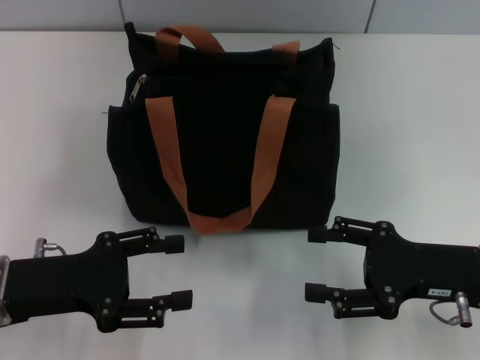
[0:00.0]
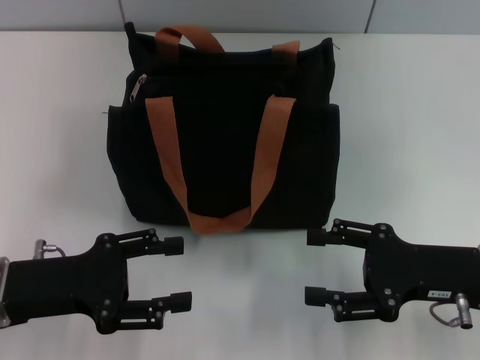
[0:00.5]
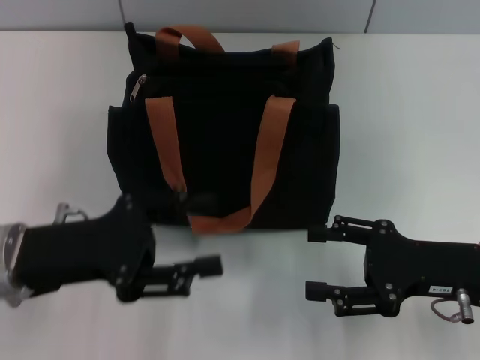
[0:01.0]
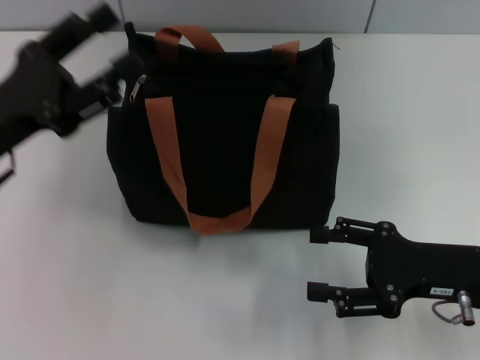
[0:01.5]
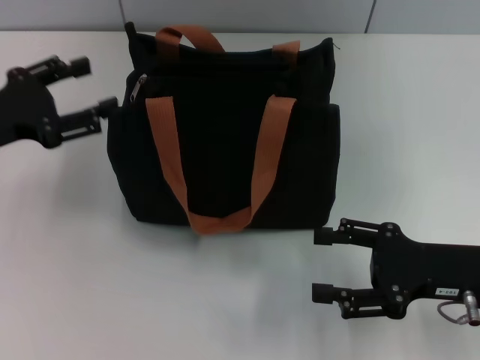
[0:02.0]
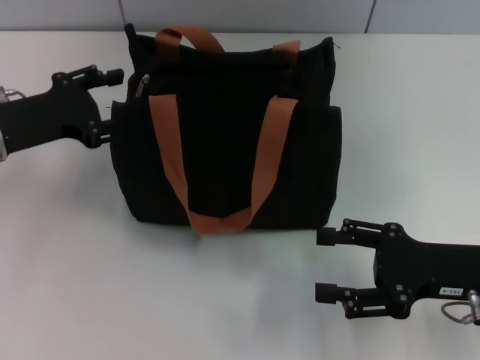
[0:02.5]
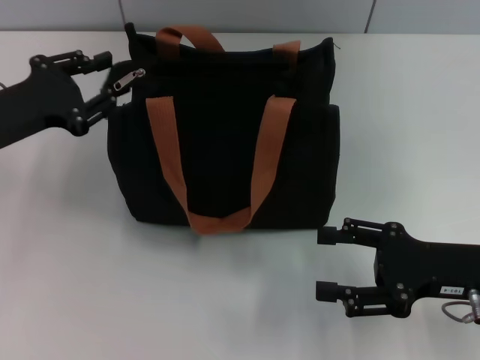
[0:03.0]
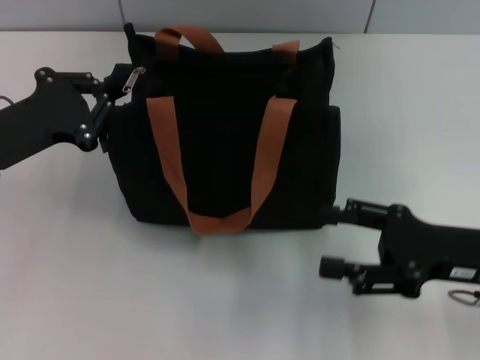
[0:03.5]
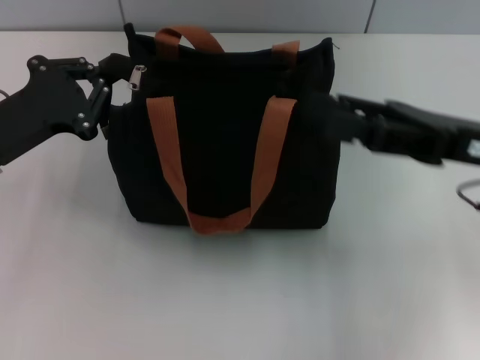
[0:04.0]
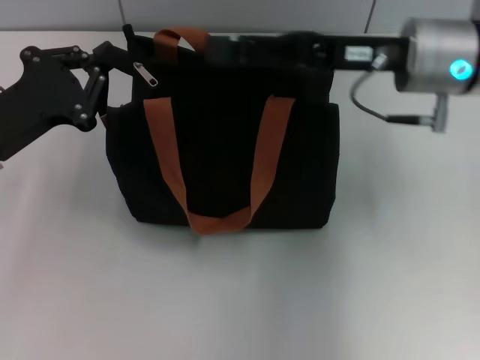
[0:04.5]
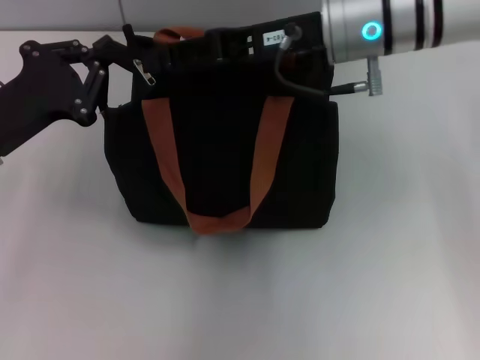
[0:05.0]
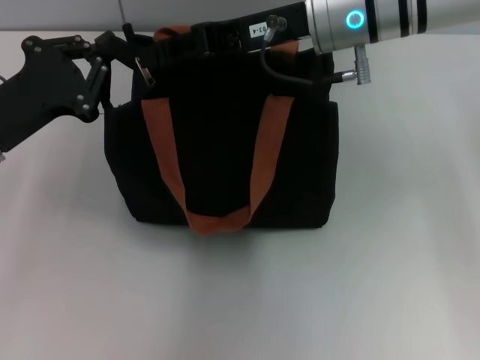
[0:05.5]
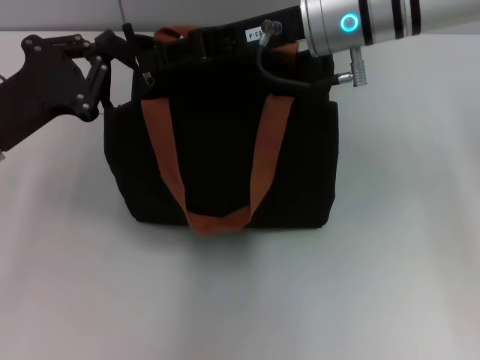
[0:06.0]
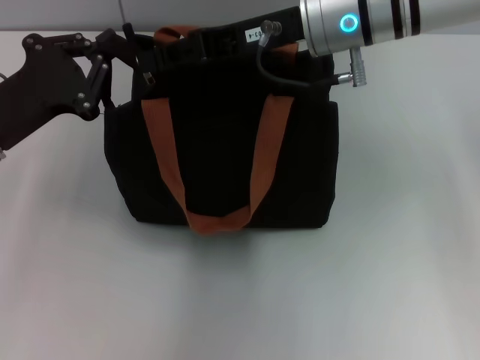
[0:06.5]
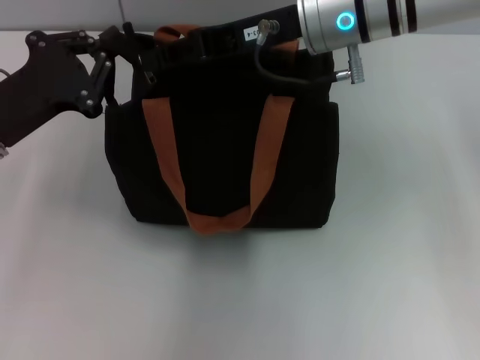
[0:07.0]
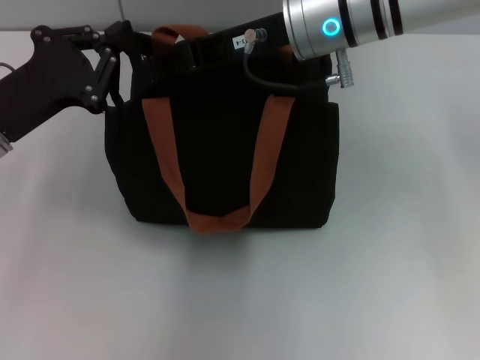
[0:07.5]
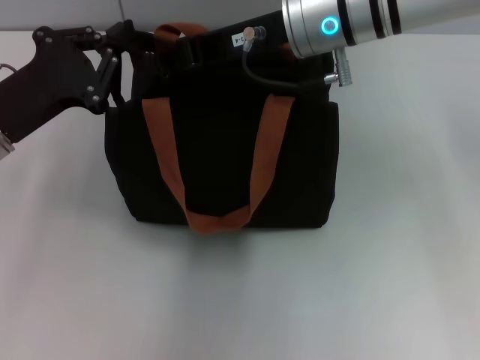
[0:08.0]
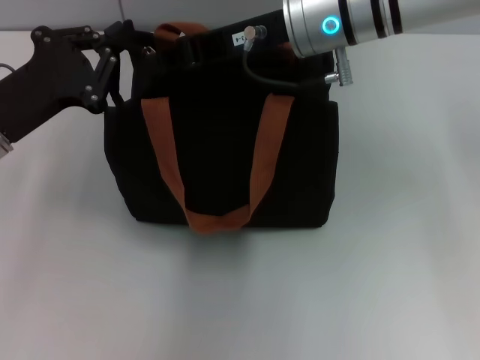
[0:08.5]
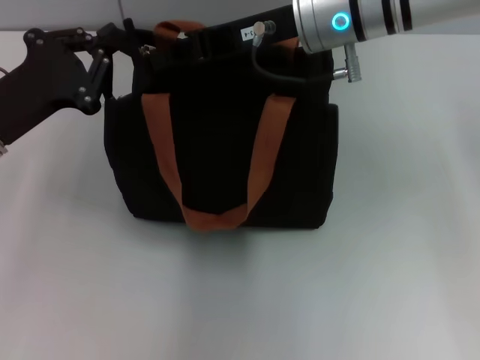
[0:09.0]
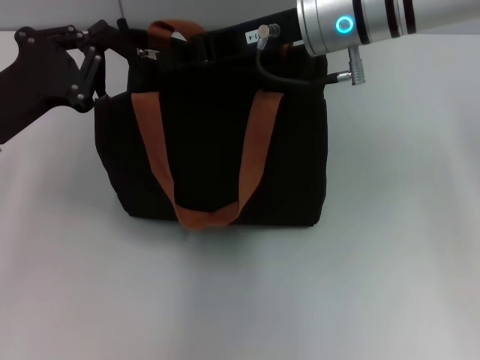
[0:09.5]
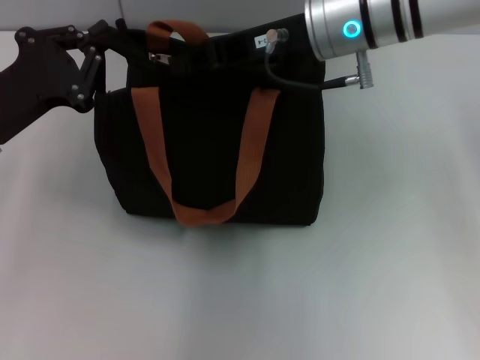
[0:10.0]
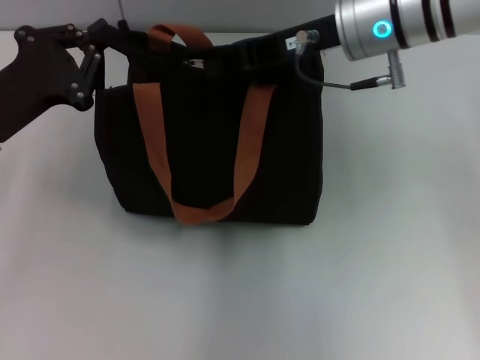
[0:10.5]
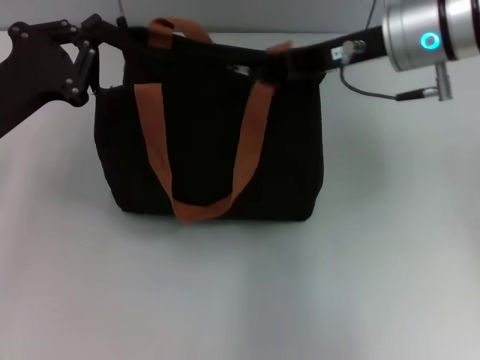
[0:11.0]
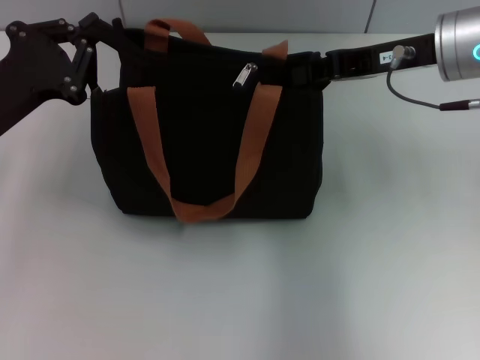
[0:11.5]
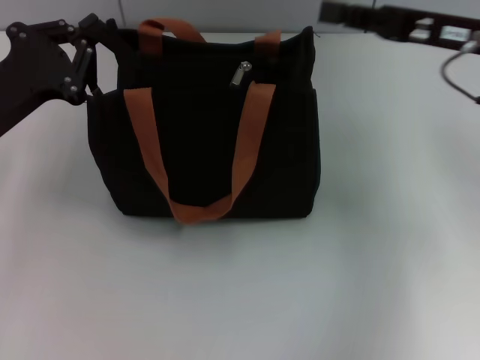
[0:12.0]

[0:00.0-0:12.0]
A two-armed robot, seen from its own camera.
Step, 0.0 to 11.5 s: Pull up the zipper with your right hand.
0.0 to 2.0 s: The left gripper heads forward, upward and to the left, covering about 10 cm.
2.0 to 4.0 s: The right gripper goes some 10 cm upward and forward; the left gripper closes its fingers.
4.0 to 6.0 s: The right gripper goes some 20 cm to the left and forward.
6.0 to 8.0 s: Both grippers stay put.
8.0 to 10.0 s: The grippers stay close to where they were, moving slightly.
10.0 to 12.0 s: The right gripper moves to the right, some 15 cm.

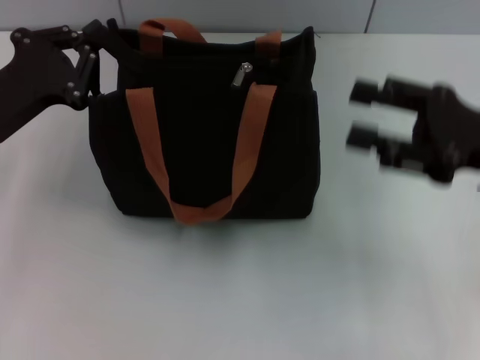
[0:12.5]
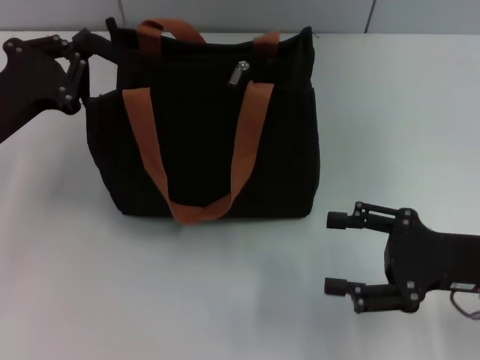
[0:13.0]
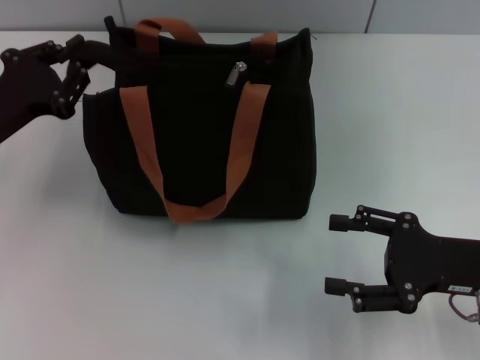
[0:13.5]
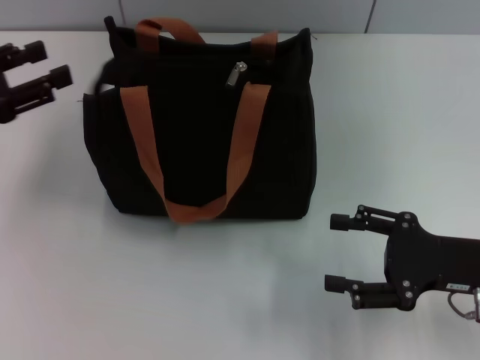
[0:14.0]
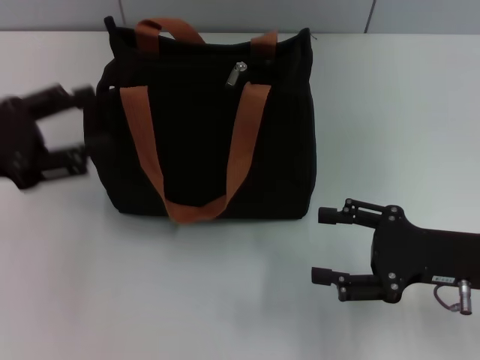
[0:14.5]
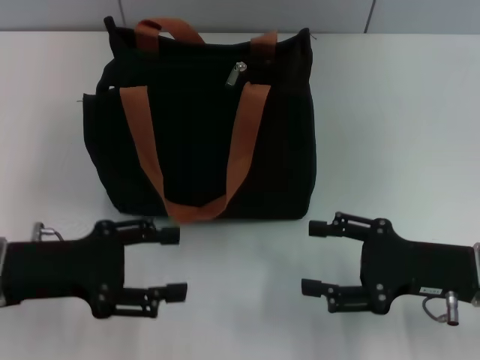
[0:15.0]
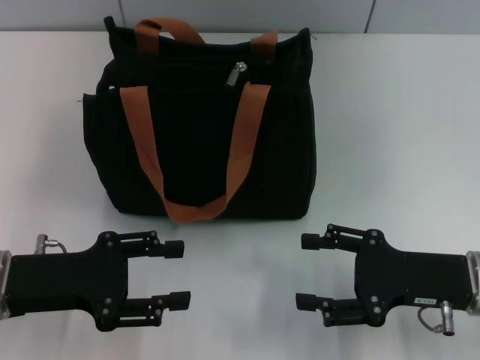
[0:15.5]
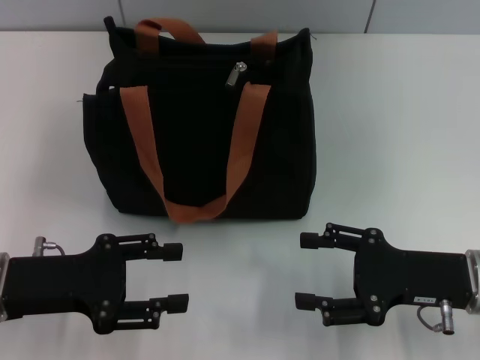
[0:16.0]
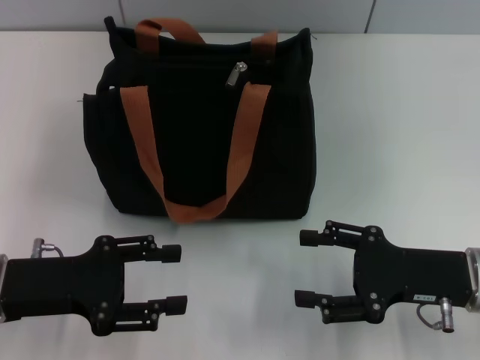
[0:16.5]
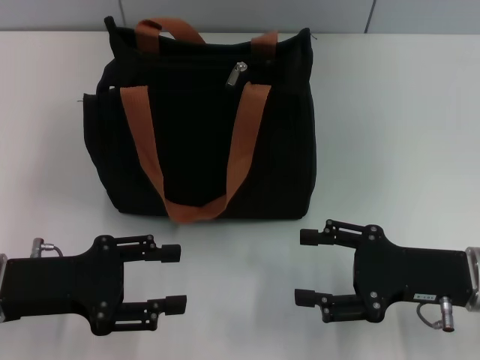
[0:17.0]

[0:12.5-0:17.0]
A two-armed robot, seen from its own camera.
Step, 12.5 to 13.5 s: Grab the zipper with your left hand.
12.5 to 14.5 s: The right gripper is displaced downward by about 10 cm, and opens its fingers; the left gripper moves roughly 5 cm, and opens its fingers.
14.5 to 17.0 s: The left gripper heads downward and to the right, covering about 10 cm.

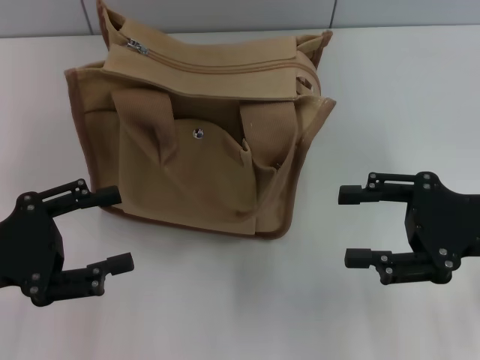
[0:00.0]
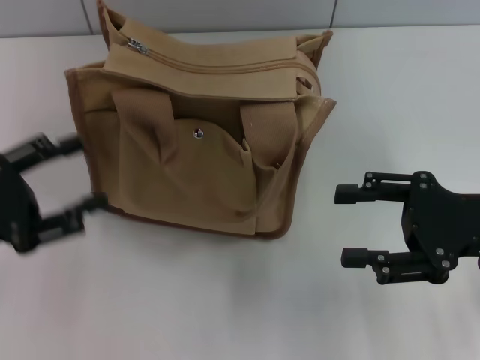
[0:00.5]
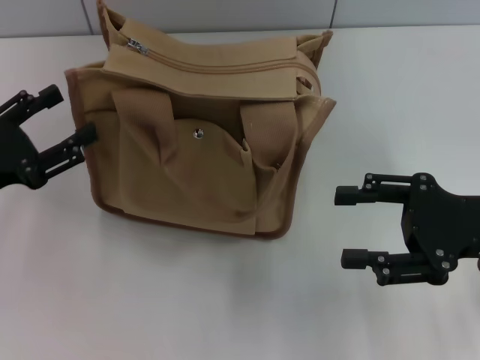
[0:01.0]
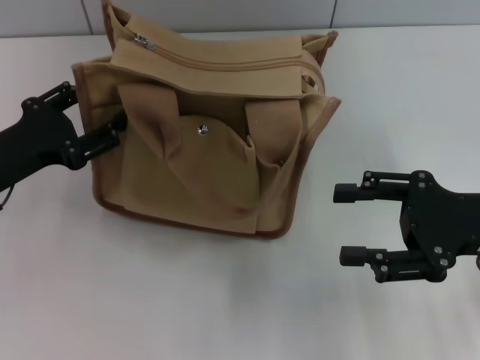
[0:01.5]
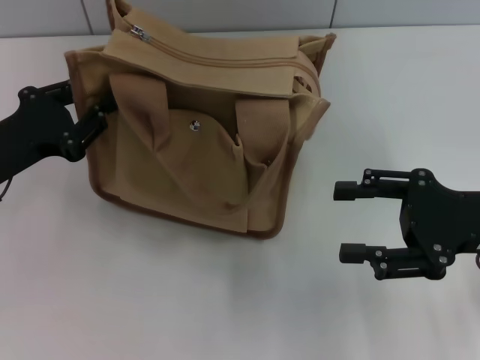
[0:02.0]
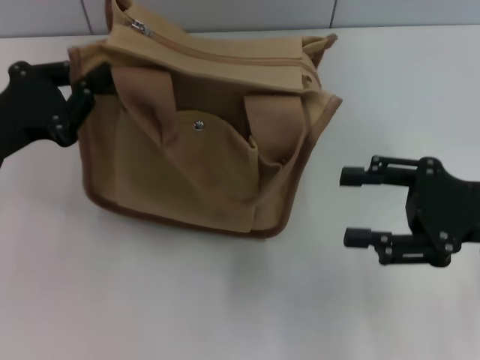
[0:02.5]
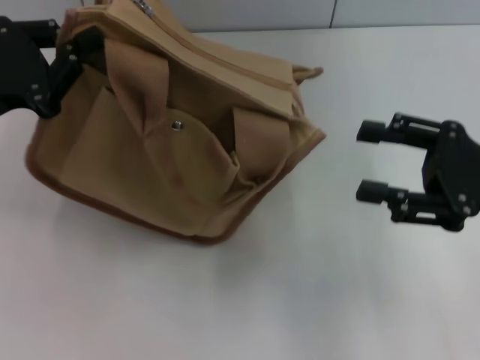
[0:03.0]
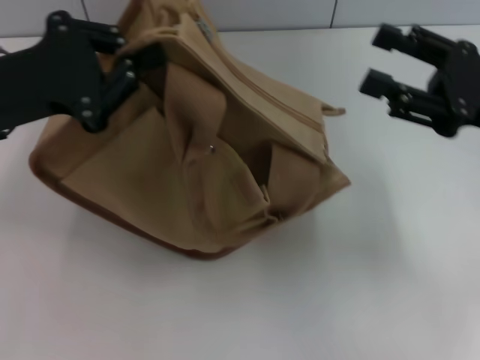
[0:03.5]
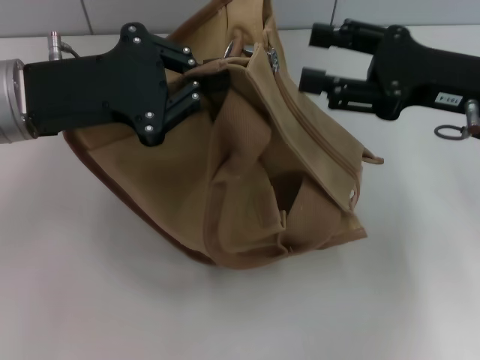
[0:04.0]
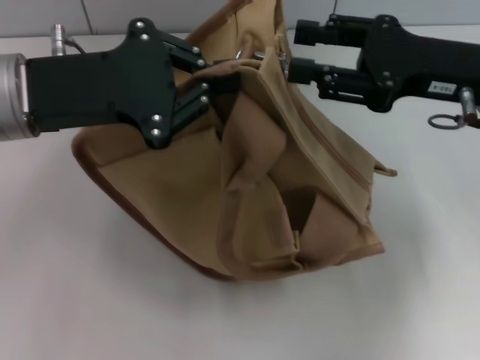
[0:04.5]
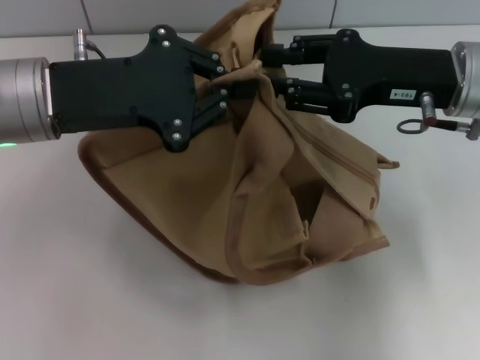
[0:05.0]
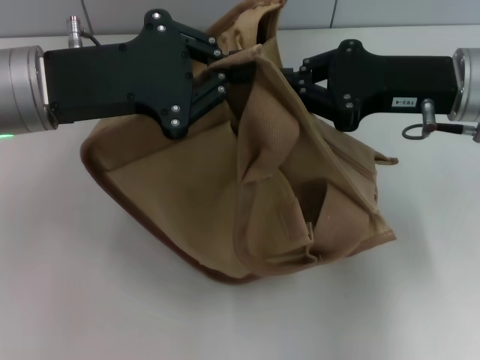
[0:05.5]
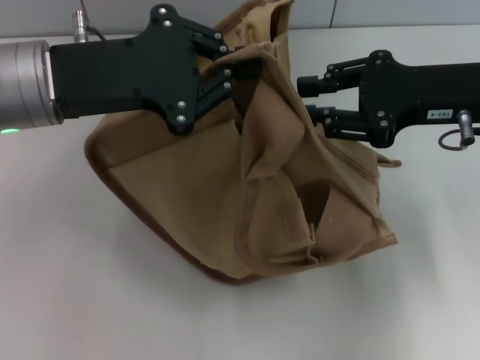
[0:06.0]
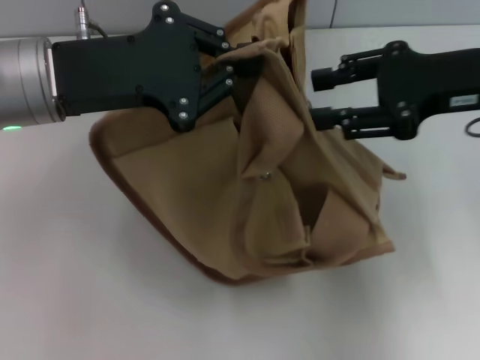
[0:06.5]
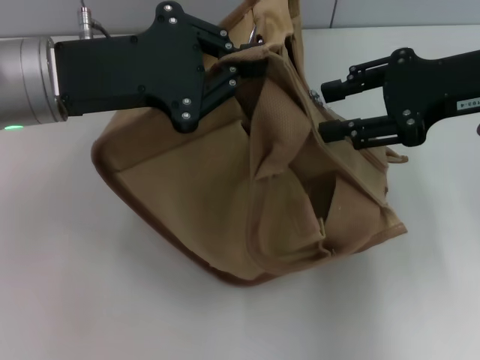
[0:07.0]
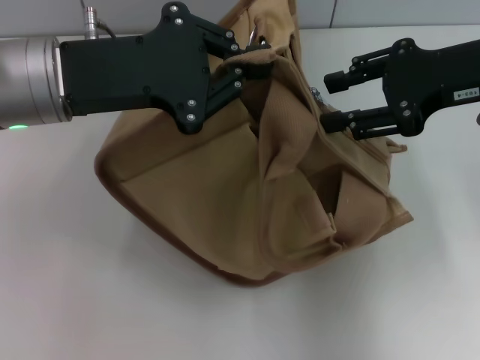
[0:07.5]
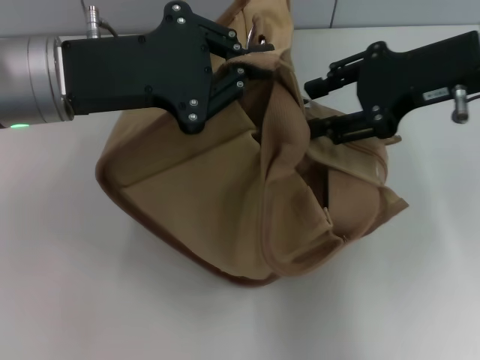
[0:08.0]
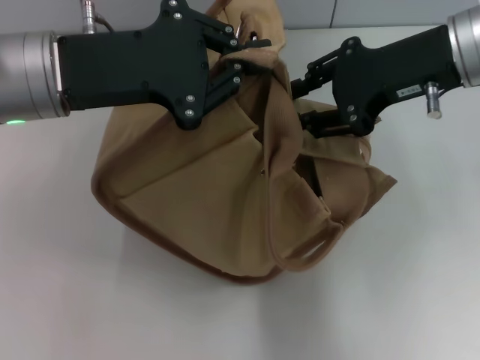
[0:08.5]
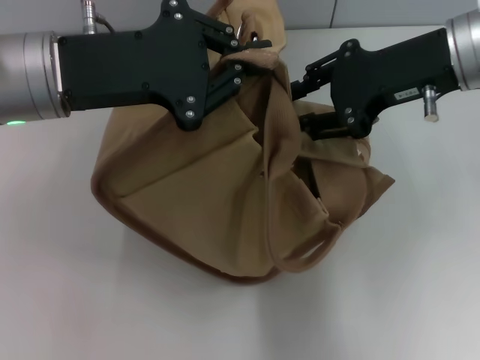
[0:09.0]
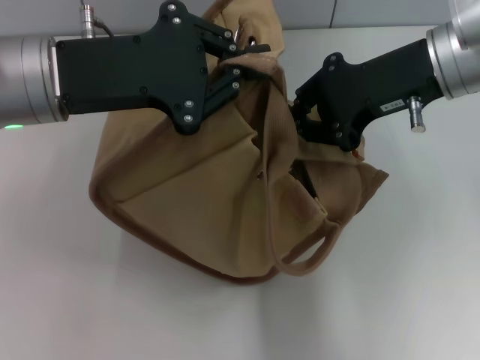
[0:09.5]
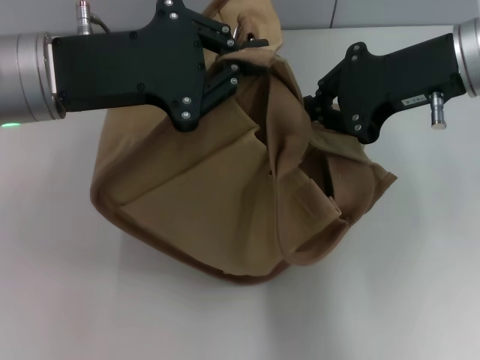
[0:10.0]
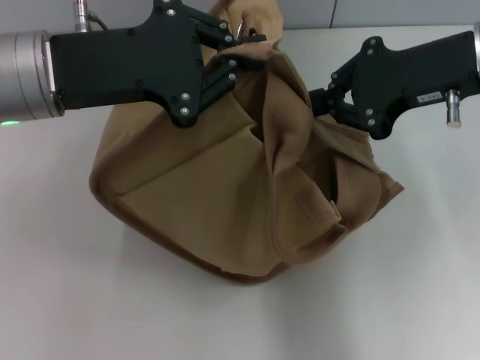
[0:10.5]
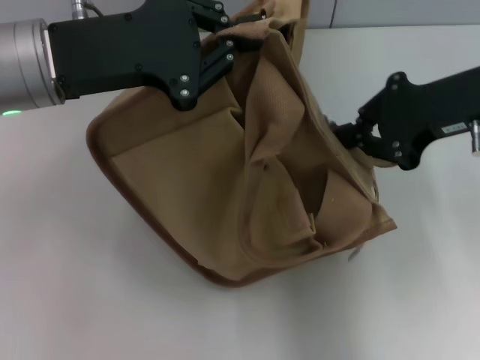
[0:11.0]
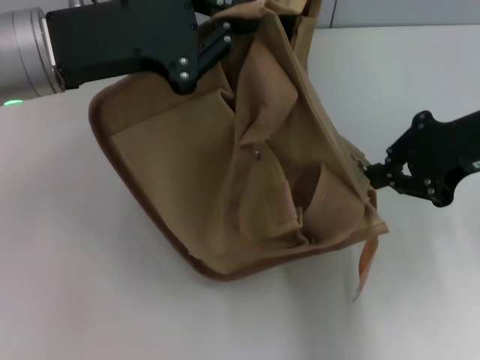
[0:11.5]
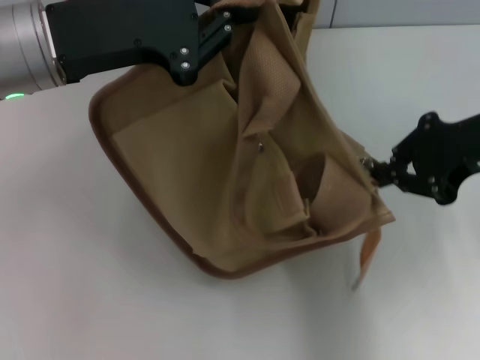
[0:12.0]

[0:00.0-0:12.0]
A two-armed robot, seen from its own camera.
0.0 to 2.0 s: The left gripper shifts roughly 5 cm forward, and closes up.
2.0 to 4.0 s: The right gripper heads forward, covering about 5 cm. Meanwhile the left gripper shifts roughly 10 cm upward and to the right, and closes up.
4.0 to 6.0 s: The right gripper closes up.
6.0 to 8.0 s: The right gripper opens up.
8.0 to 10.0 s: The right gripper closes.
10.0 to 12.0 s: The right gripper goes roughly 5 cm to the right.
